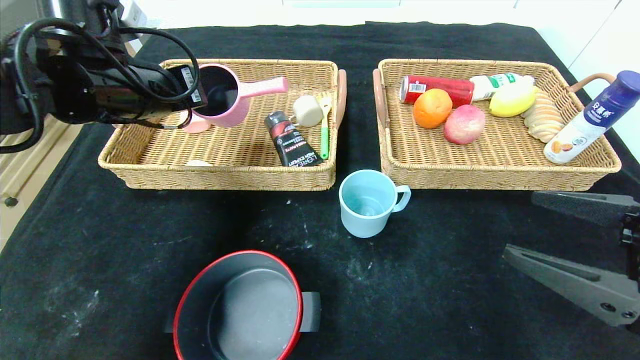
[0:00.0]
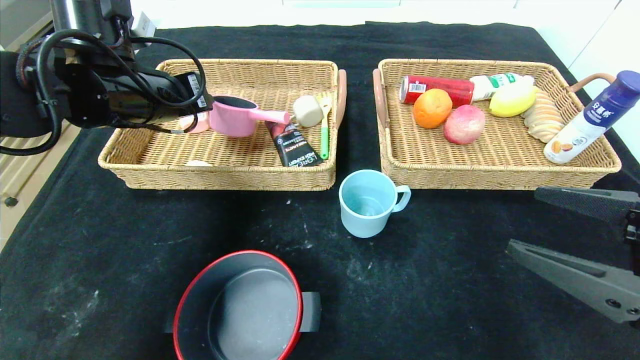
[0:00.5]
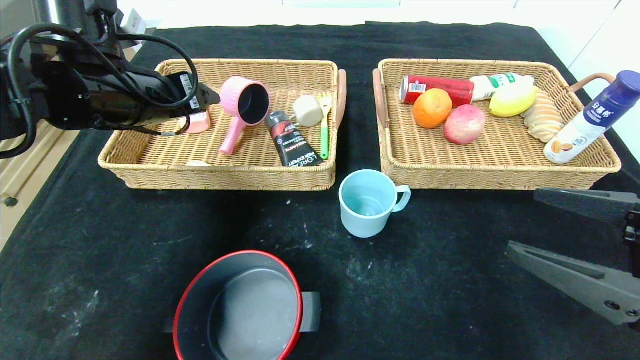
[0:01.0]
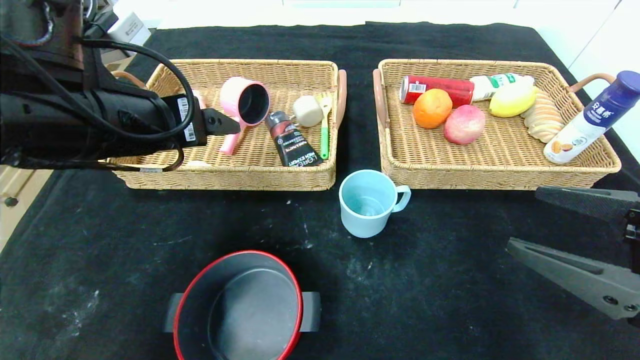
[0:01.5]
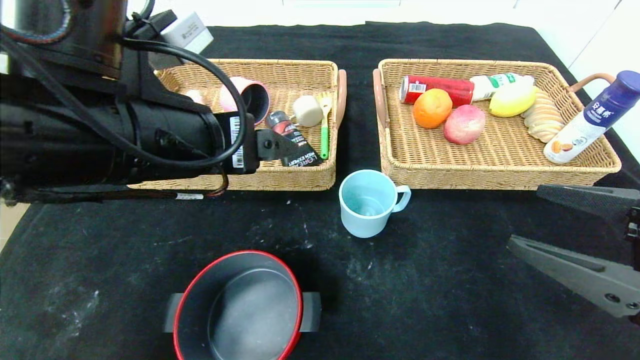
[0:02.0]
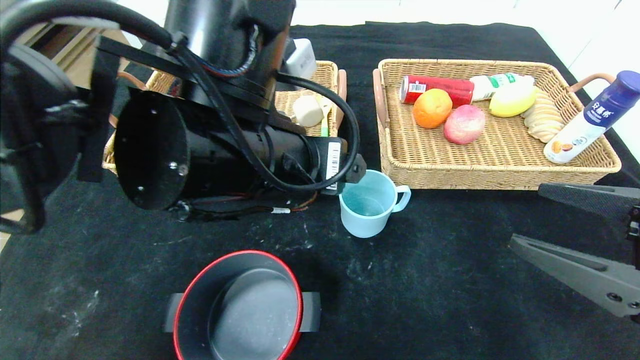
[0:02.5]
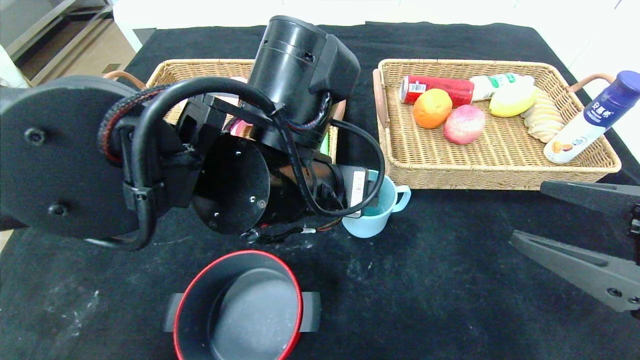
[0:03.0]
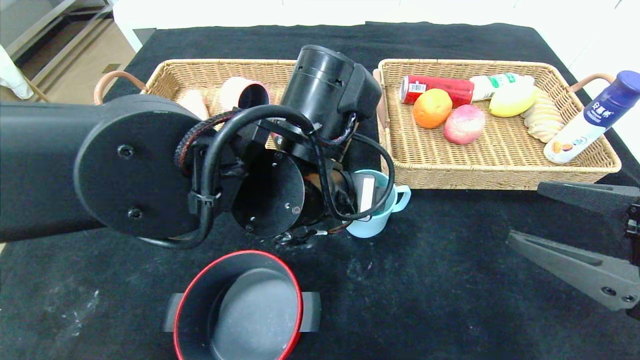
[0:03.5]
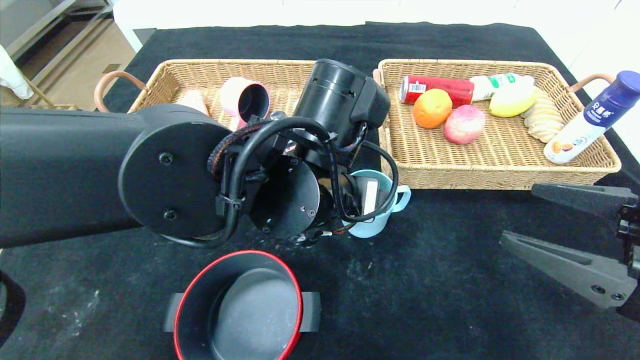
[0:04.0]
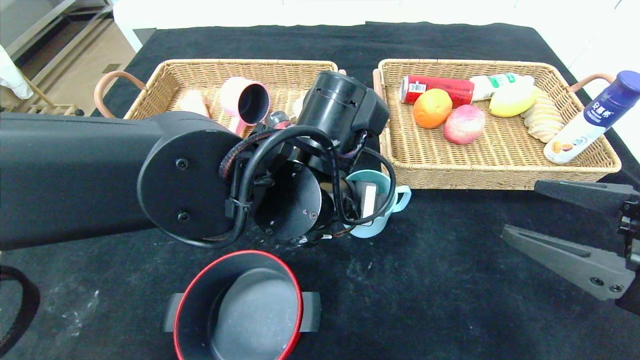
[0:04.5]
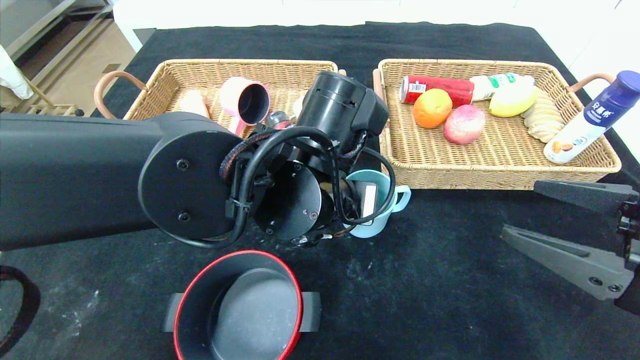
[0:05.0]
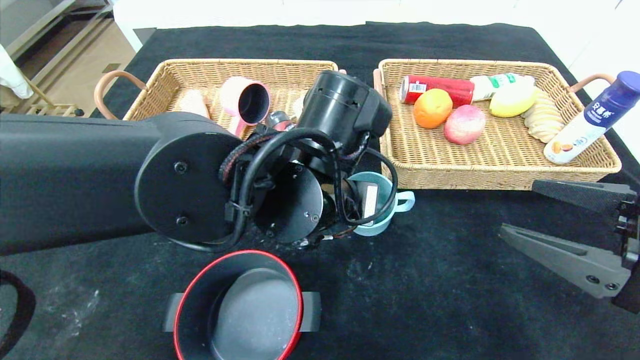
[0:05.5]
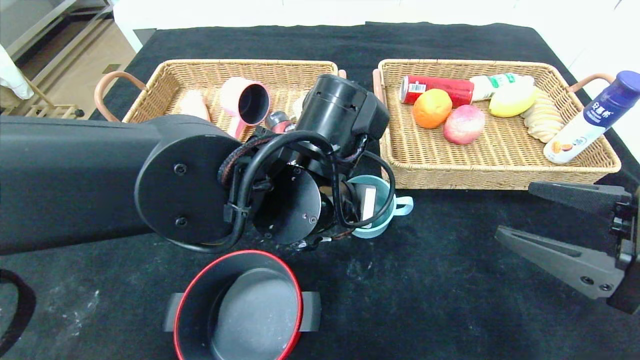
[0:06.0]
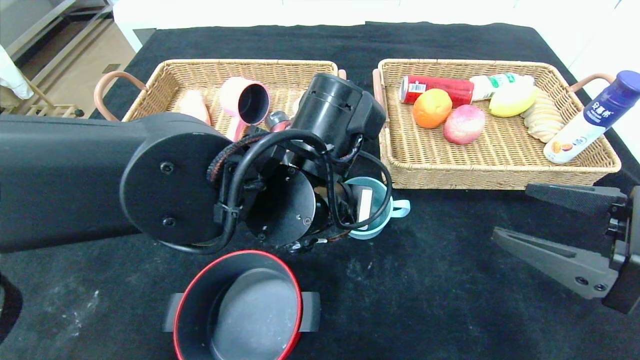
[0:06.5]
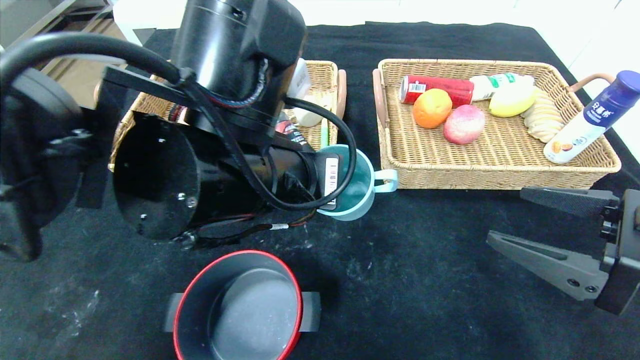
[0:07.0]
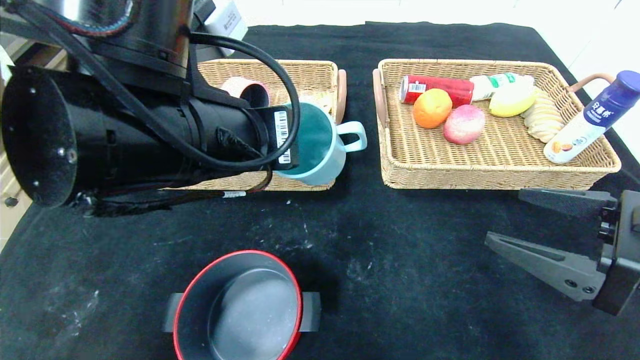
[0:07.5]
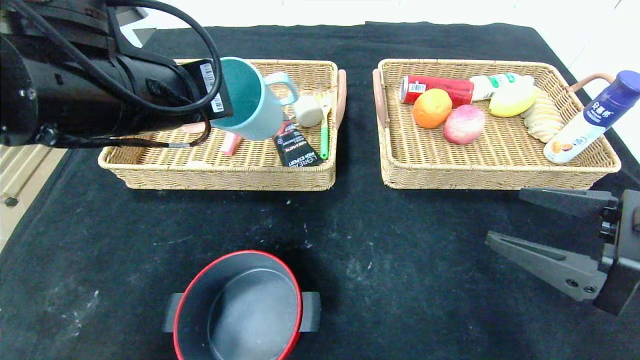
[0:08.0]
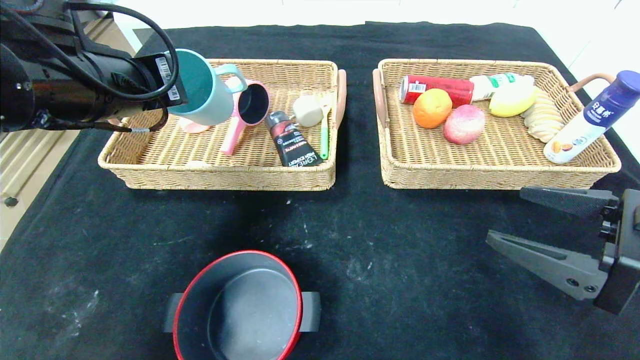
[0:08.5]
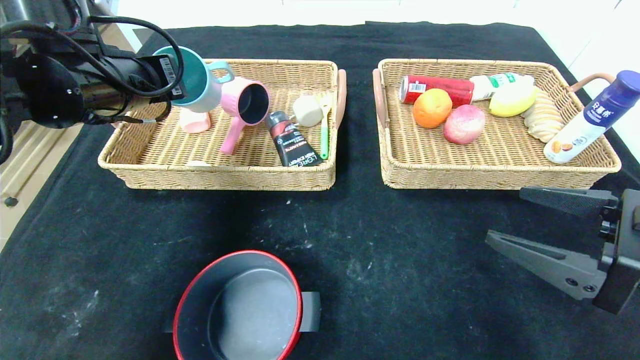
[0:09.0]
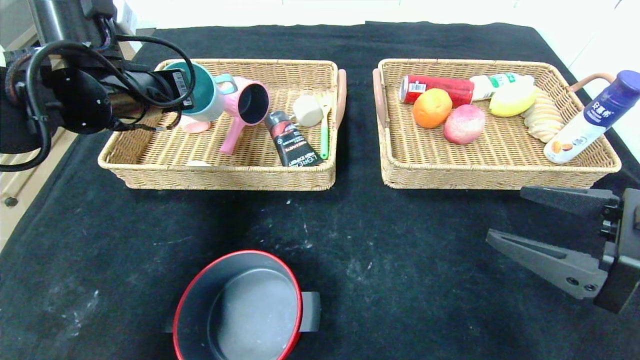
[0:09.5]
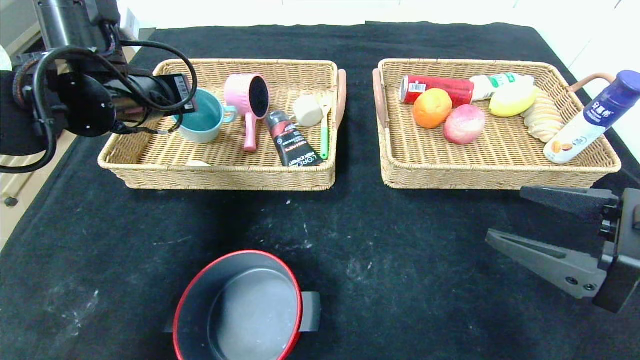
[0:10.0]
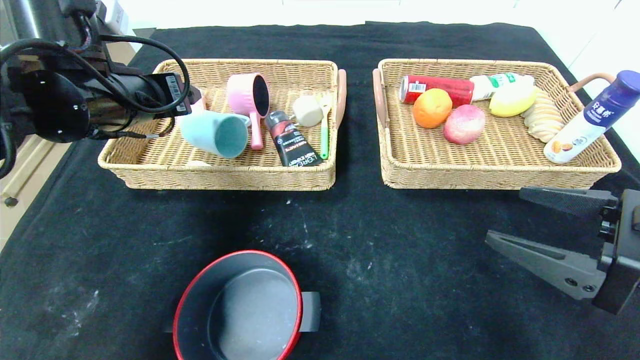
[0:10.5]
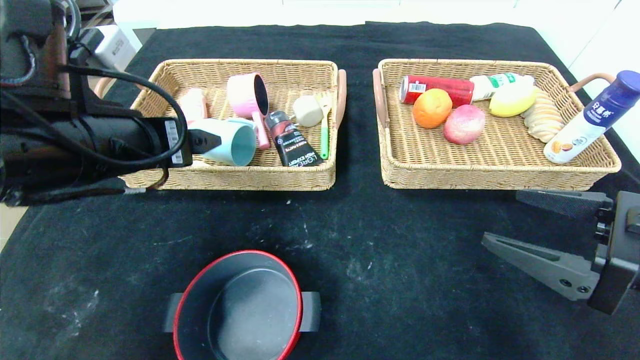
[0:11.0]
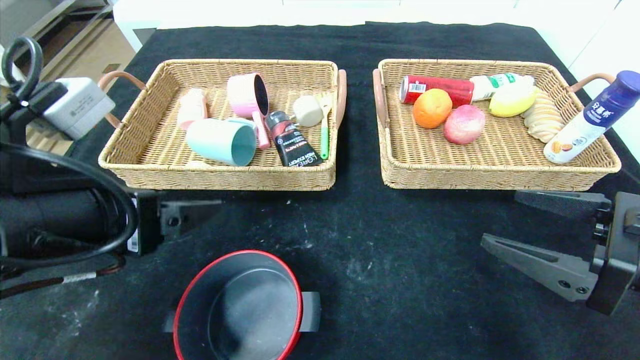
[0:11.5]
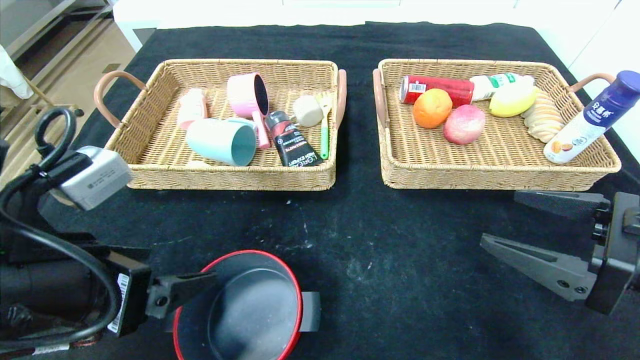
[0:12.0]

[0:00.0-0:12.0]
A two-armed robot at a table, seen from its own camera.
Step, 0:01.5 to 0:10.0: Grasp the blue cup and put it in the left basket.
0:00.0 to 0:02.0: The left gripper shifts roughly 15 cm backward and to the right, and opens up.
0:02.0 to 0:04.0: The left gripper is displaced to the right and downward by about 15 cm.
0:04.0 to 0:06.0: The left gripper closes up.
0:06.0 to 0:08.0: The left gripper travels to the left and upward by some 15 cm.
0:08.0 to 0:10.0: The left gripper goes roughly 10 cm forward and to the left, and opens up.
0:10.0 to 0:12.0: The left gripper travels backward by about 20 cm, and opens up.

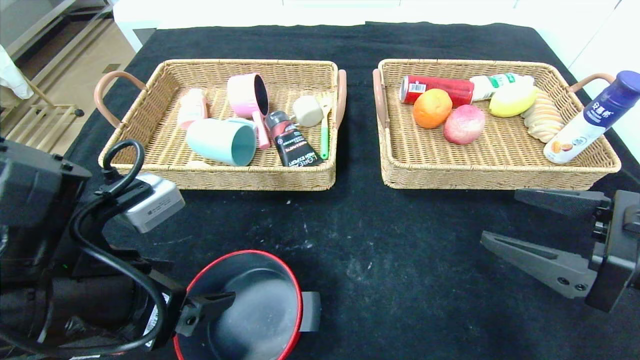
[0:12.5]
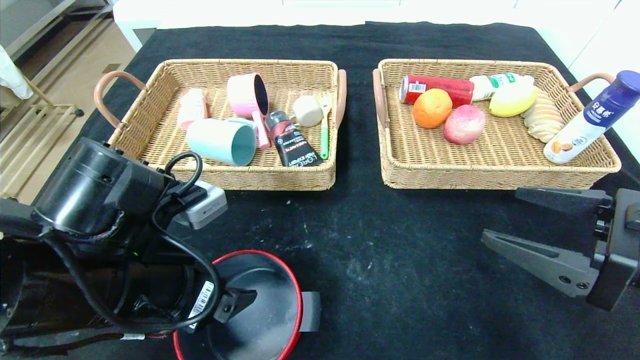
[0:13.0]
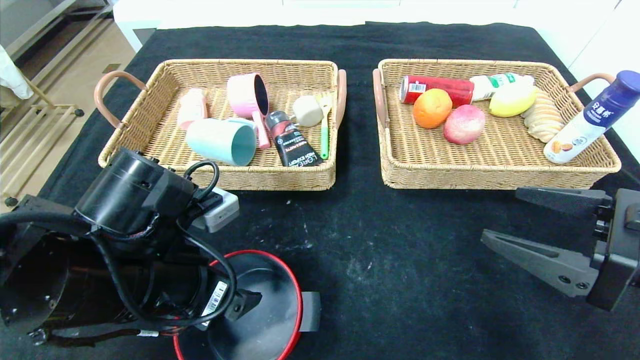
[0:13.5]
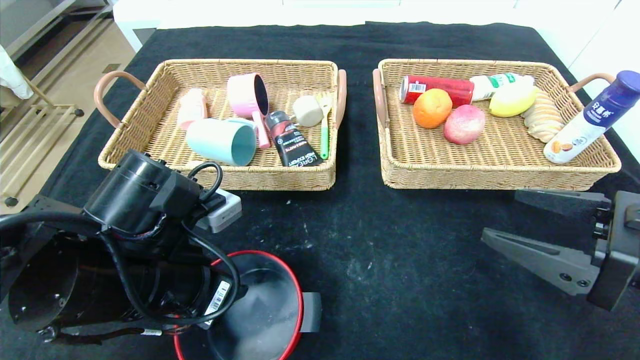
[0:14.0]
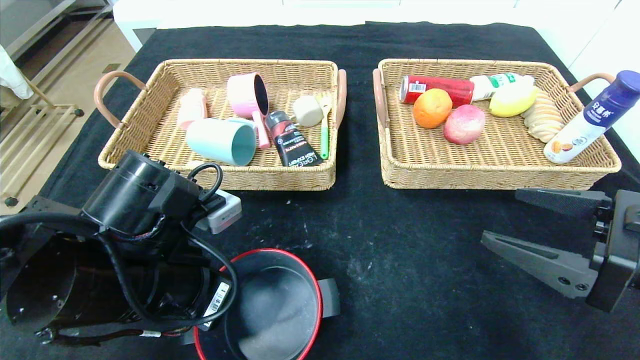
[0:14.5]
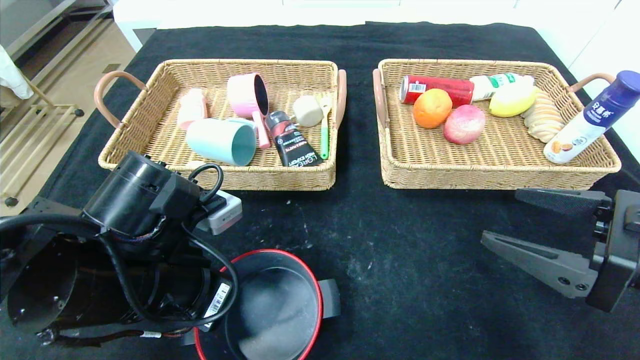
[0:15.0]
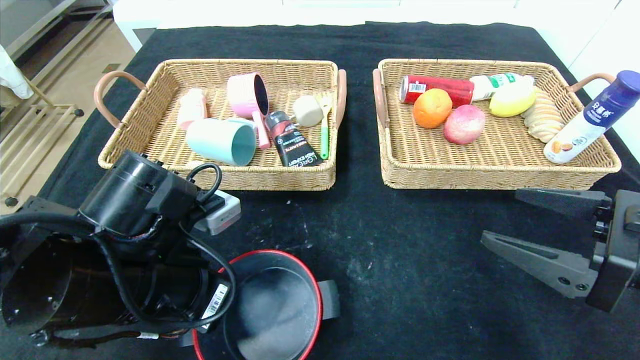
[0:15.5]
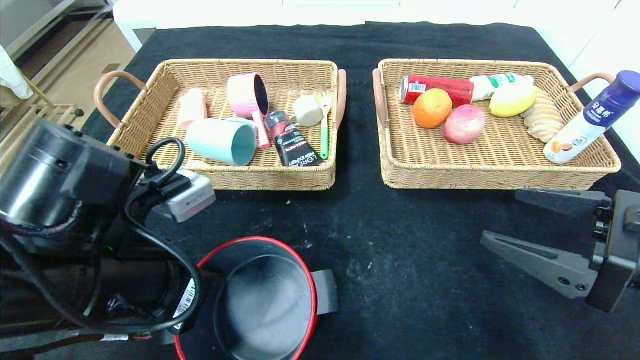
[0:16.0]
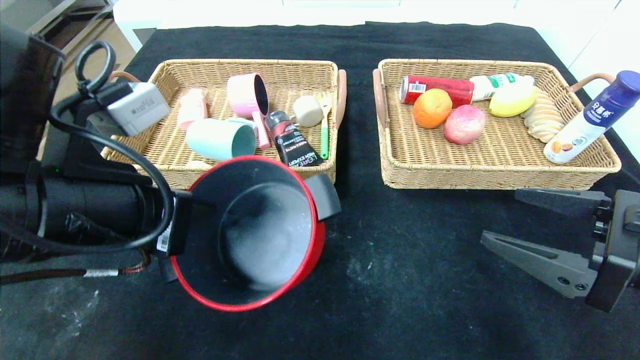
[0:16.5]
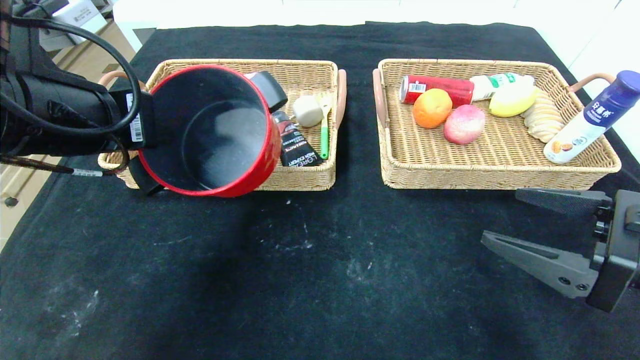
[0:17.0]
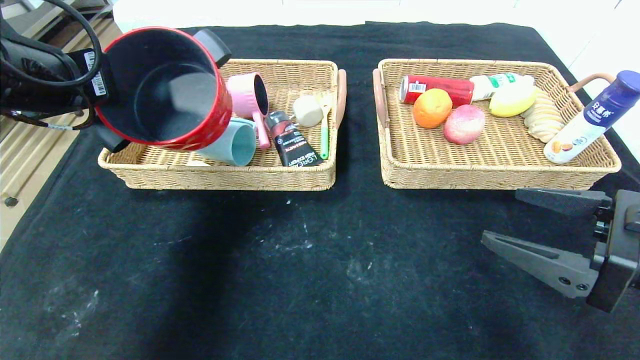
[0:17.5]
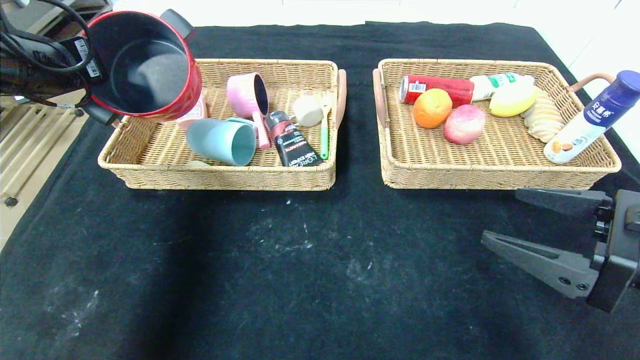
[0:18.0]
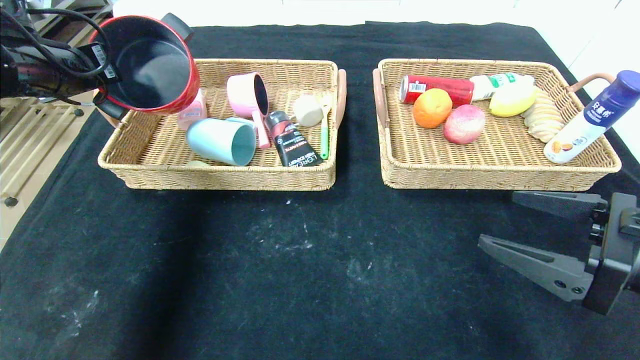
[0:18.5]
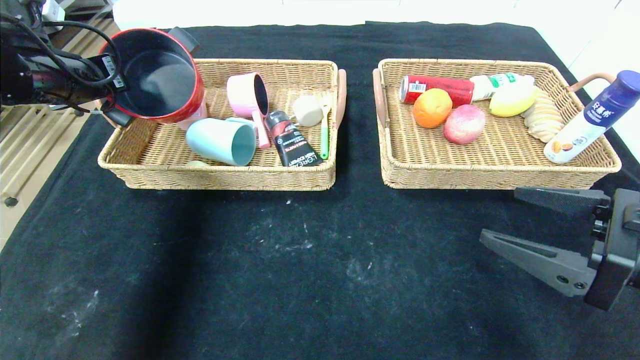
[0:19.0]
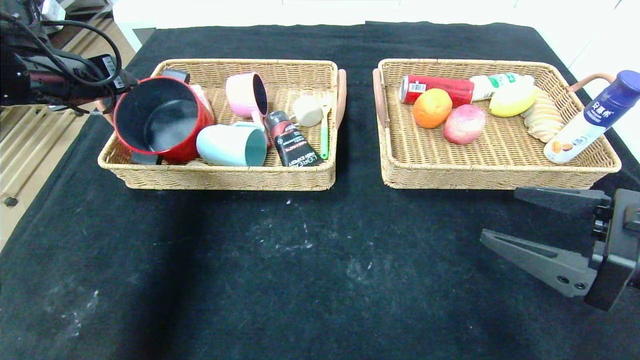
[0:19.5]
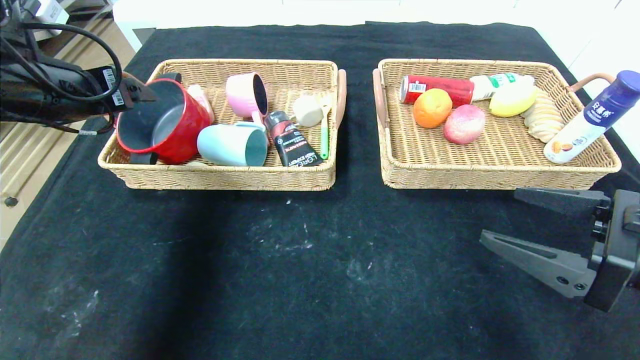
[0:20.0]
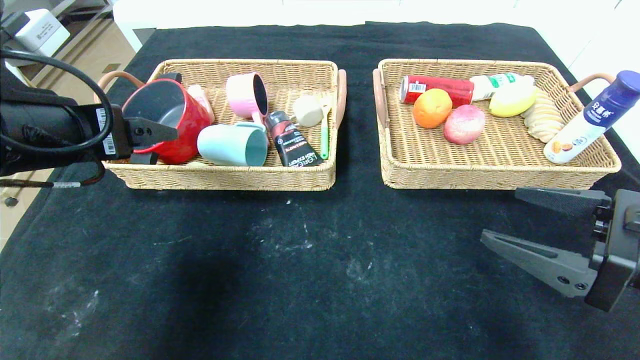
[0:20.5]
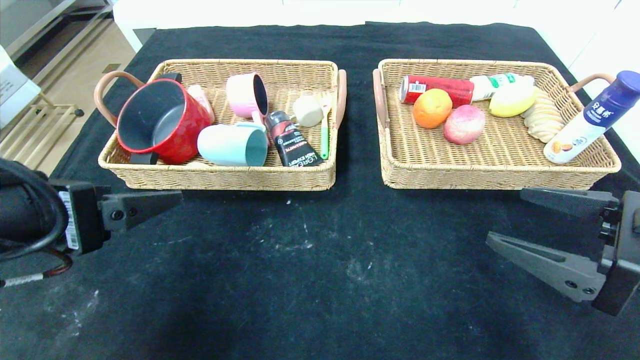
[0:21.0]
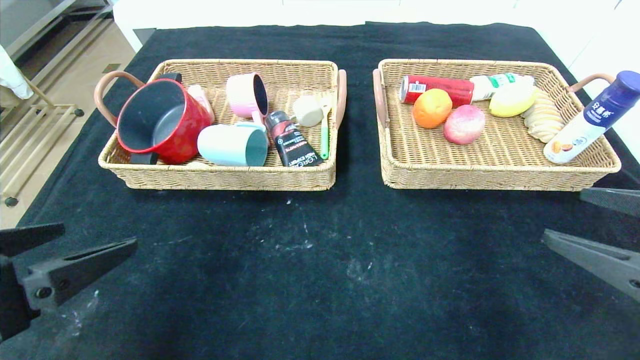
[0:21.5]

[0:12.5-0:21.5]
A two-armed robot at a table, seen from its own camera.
Step, 0:12.5 to 0:19.5: Grasp the red pot and put it in the left basket.
0:12.5 to 0:14.5: The left gripper shifts by about 5 cm, and closes its fingers.
0:14.5 to 0:17.0: The left gripper goes approximately 15 cm upward and to the left.
0:17.0 to 0:19.5: The left gripper travels forward and to the left by about 15 cm, and opens its fingers.
0:19.5 to 0:21.5: The left gripper heads backward, covering some 25 cm, and opens up. Meanwhile the right gripper changes place by about 5 cm.
